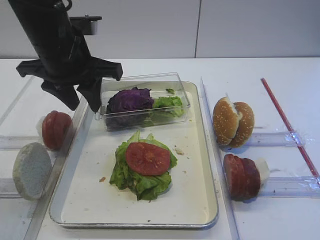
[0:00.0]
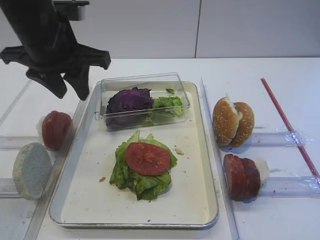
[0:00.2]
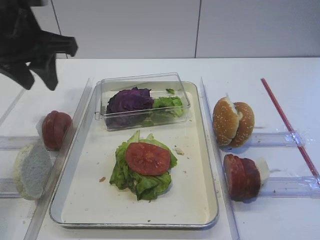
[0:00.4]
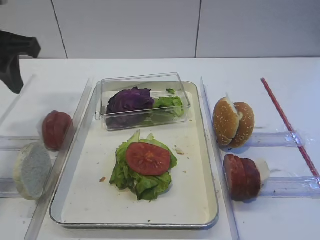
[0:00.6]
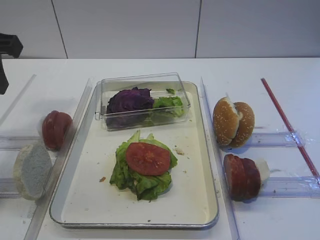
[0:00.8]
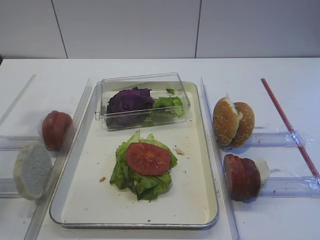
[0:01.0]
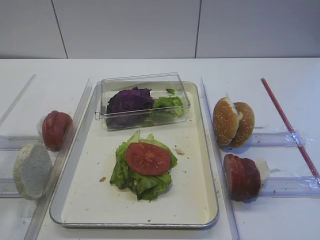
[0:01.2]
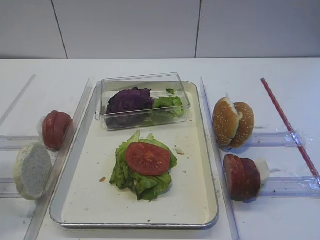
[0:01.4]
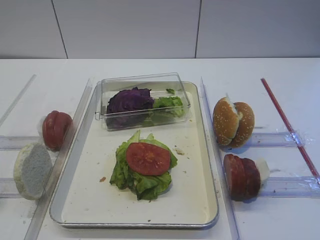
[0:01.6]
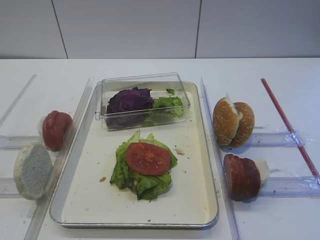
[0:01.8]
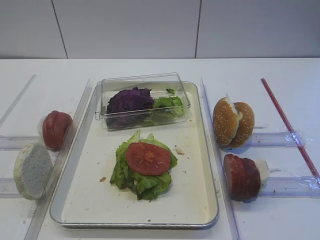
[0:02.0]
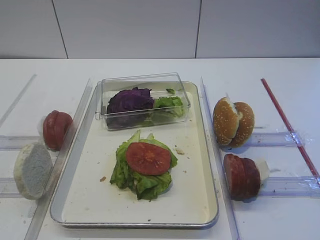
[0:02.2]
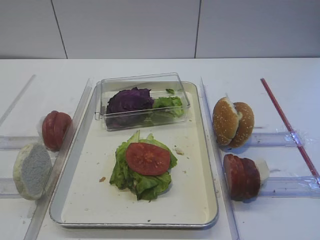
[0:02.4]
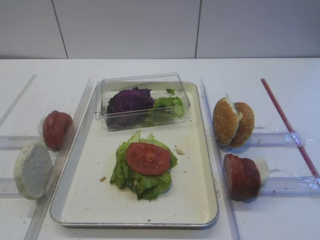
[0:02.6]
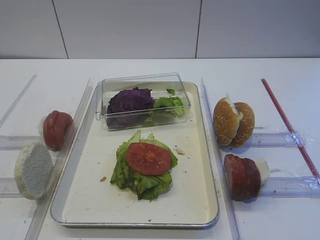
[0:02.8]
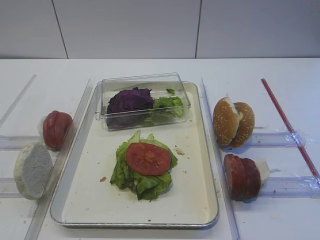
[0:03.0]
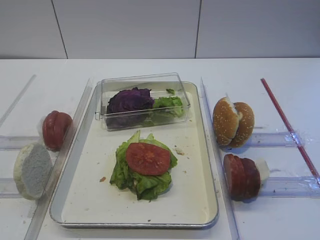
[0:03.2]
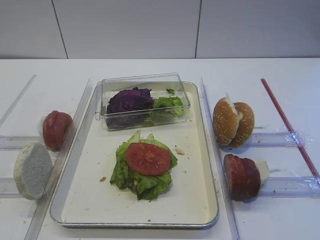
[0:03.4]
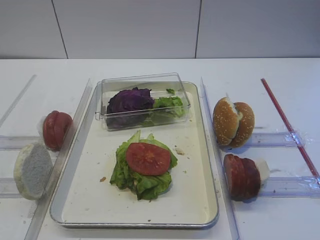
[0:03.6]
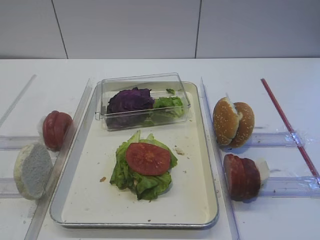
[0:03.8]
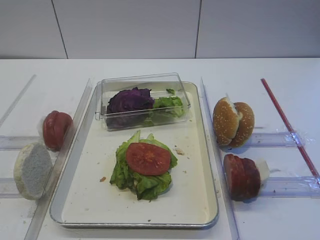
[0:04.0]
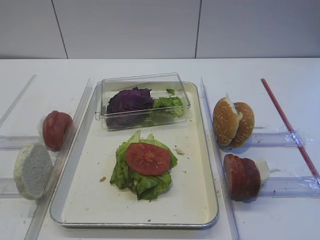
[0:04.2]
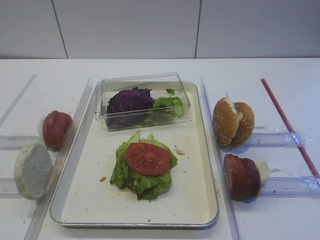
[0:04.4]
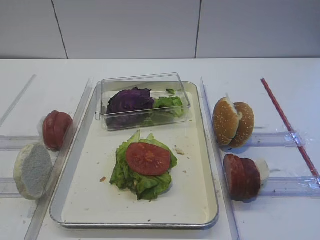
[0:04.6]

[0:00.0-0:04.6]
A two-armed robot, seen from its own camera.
0:00.0 to 0:01.6: The left gripper goes roughly 30 cm backward and to the left.
0:03.0 to 0:04.6: The two grippers keep their place.

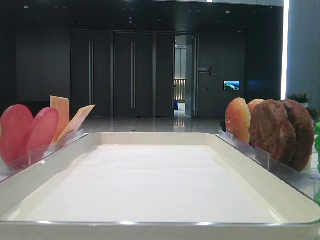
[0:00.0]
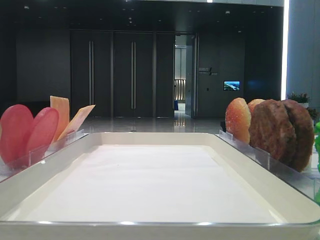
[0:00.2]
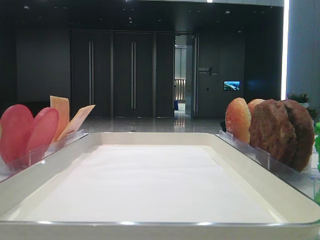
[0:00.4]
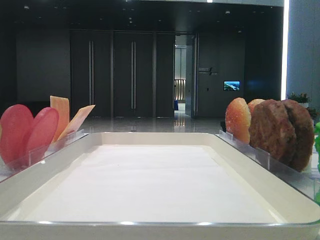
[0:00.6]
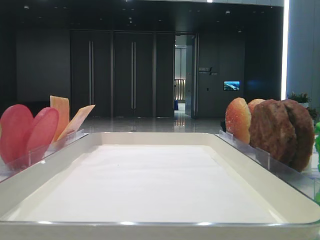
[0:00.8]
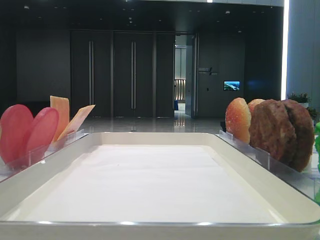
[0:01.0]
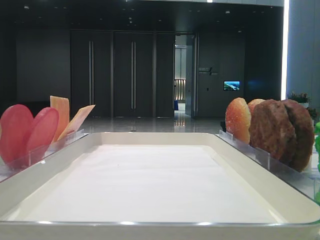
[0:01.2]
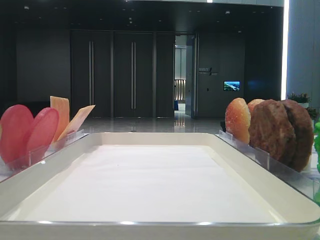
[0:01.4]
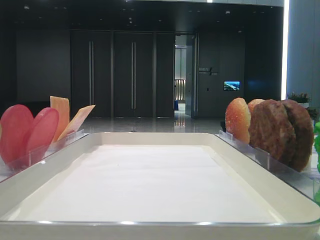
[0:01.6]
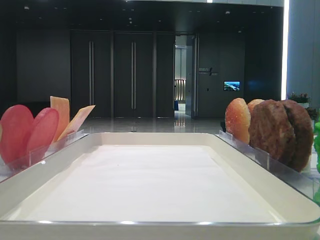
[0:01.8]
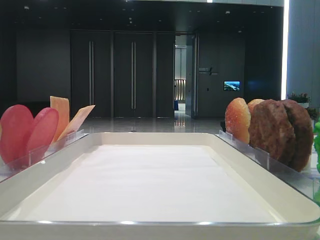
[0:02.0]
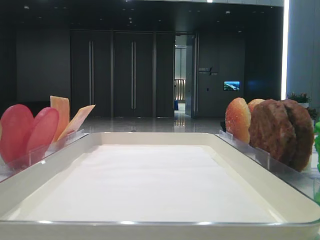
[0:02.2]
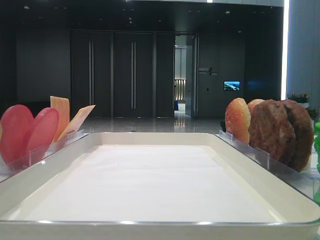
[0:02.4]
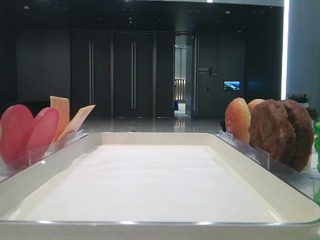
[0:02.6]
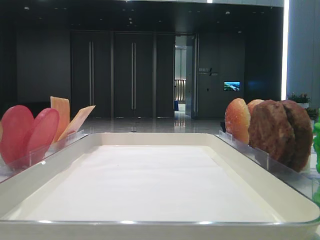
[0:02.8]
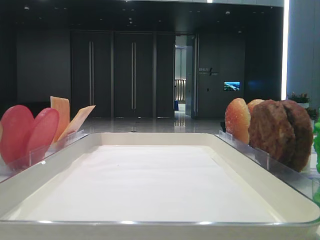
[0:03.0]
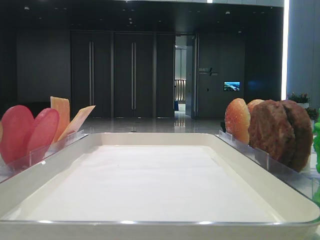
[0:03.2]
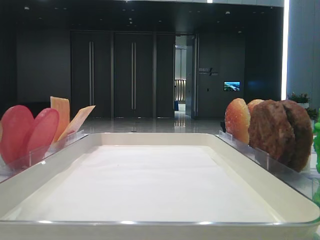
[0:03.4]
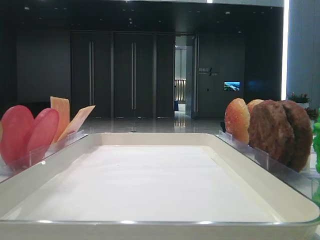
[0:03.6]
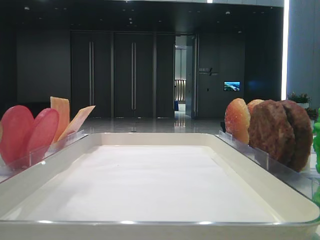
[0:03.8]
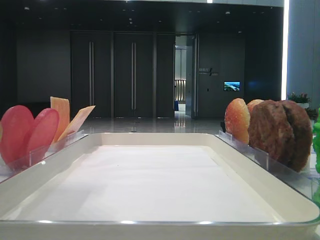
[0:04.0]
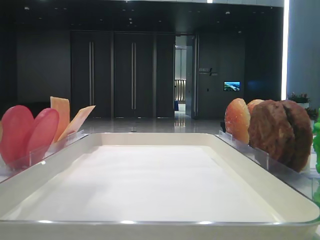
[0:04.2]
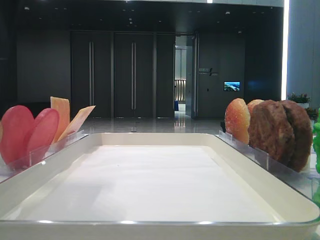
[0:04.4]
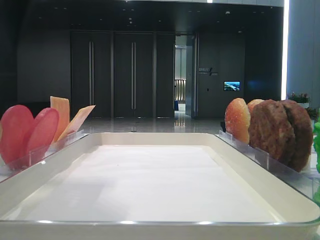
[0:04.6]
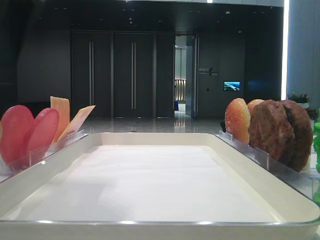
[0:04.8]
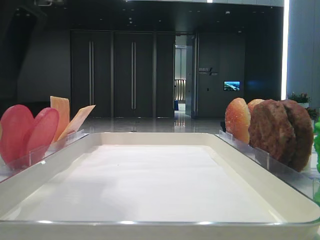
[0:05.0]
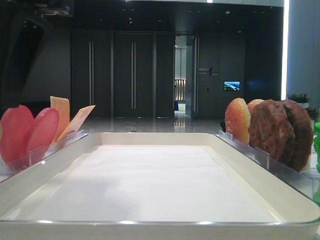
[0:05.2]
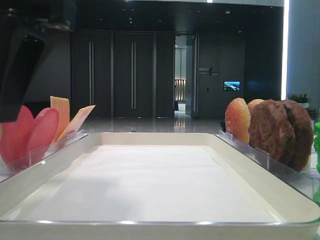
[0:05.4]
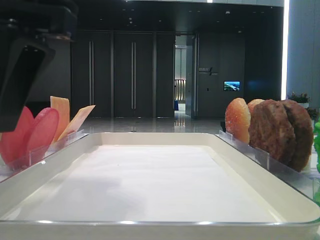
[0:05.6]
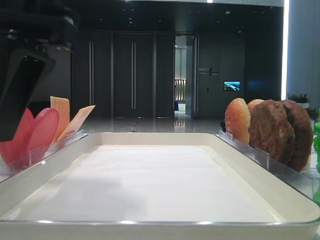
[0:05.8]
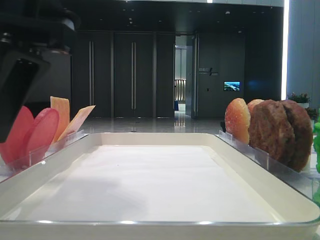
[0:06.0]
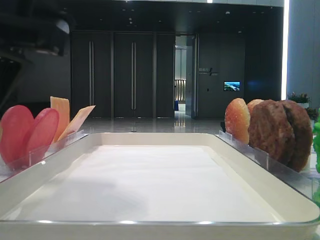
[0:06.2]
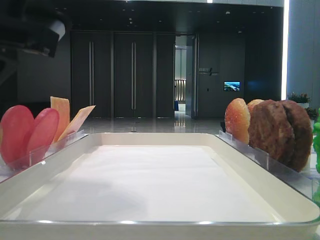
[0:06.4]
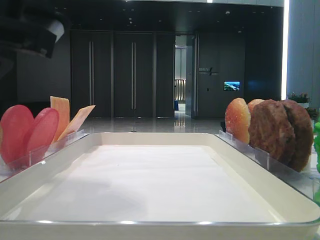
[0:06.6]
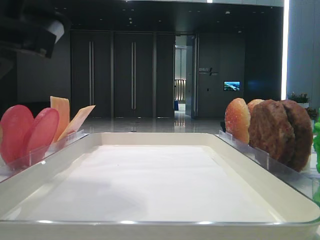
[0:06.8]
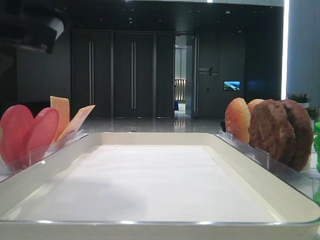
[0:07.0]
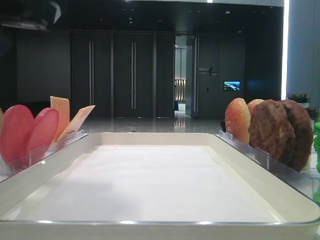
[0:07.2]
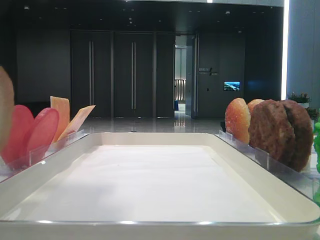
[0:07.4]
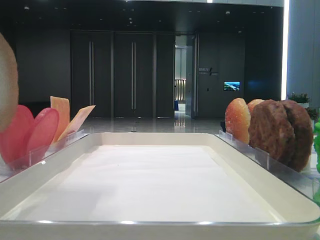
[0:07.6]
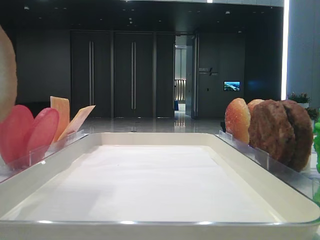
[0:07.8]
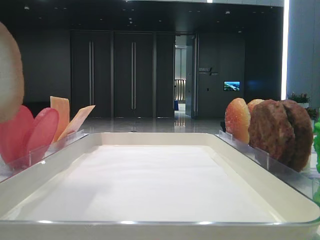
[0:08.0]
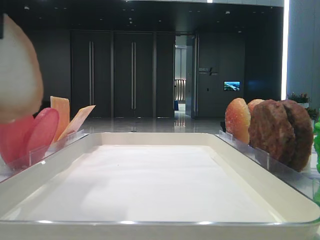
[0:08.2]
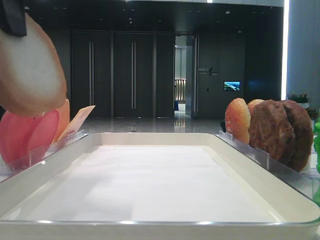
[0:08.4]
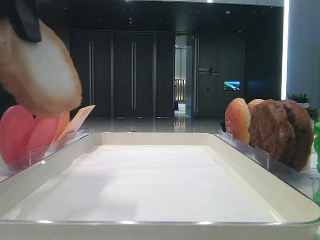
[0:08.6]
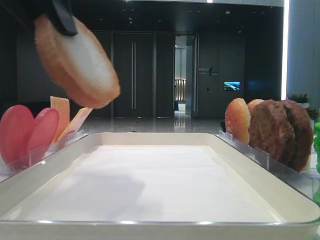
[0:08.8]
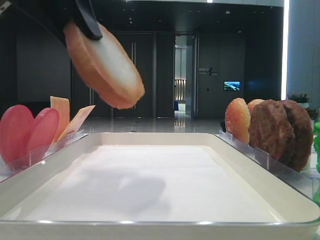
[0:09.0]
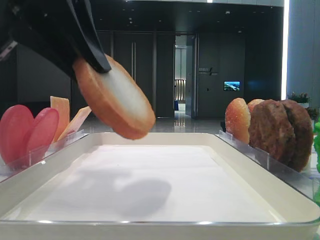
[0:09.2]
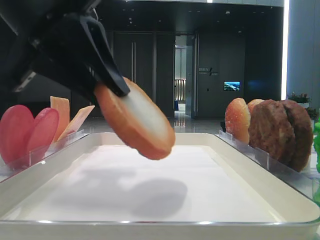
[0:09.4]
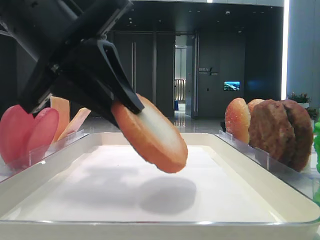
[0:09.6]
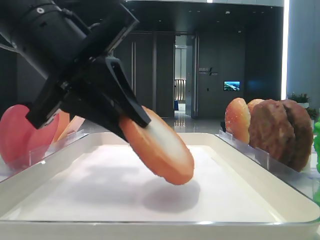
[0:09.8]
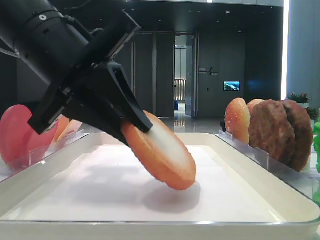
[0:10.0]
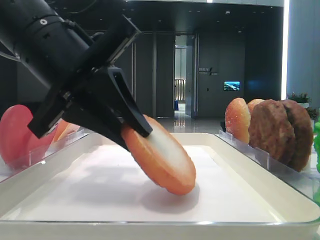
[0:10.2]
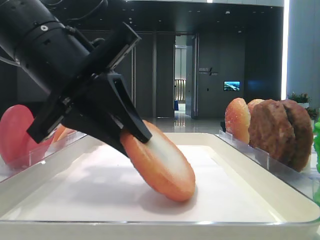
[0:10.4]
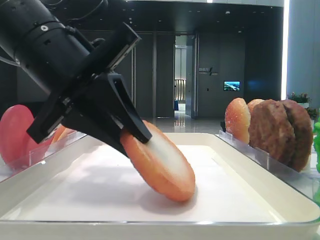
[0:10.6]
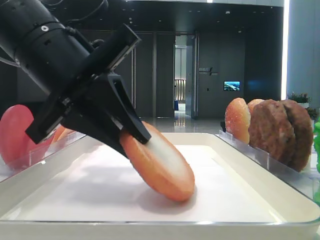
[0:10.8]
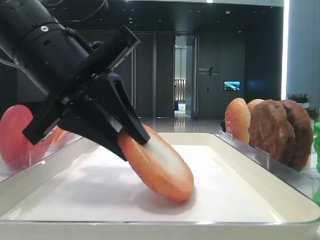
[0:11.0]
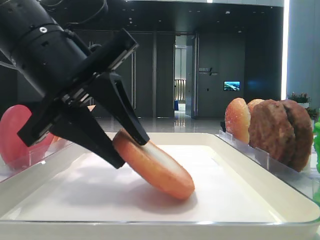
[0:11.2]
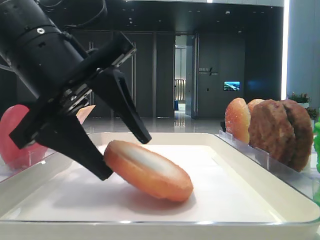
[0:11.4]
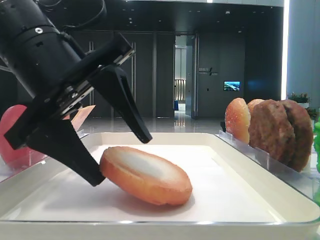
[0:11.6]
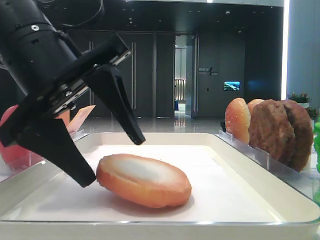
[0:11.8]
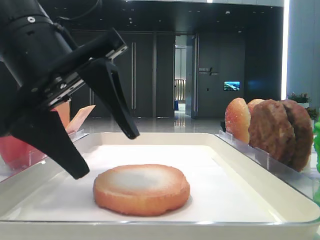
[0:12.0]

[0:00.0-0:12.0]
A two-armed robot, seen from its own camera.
Step, 0:00.0 to 0:06.0: Pick up the bottom bread slice with the left hand.
Step, 0:06.2 to 0:11.8: Place the bottom bread slice on the tray with the left hand.
0:03.0 to 0:04.4: The left gripper moves to the right and downward, about 15 cm.
0:04.4 to 0:06.0: The left gripper goes about 5 cm downward.
0:06.0 to 0:07.6: The left gripper heads upward, covering some 5 cm, and closes.
0:07.6 to 0:09.0: The left gripper heads forward, covering roughly 5 cm.
0:09.0 to 0:10.4: The left gripper goes about 10 cm downward.
0:10.4 to 0:12.0: The left gripper opens.

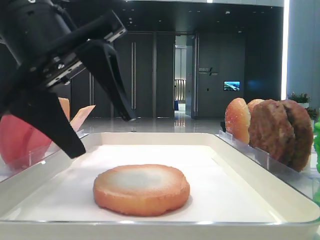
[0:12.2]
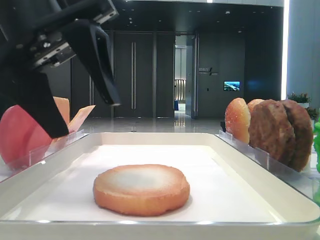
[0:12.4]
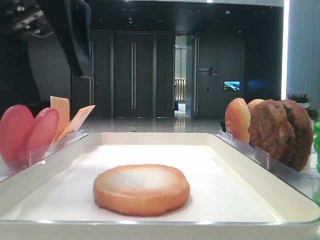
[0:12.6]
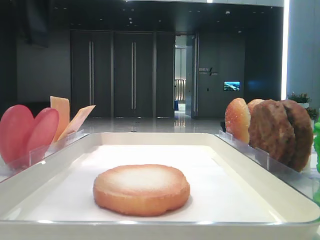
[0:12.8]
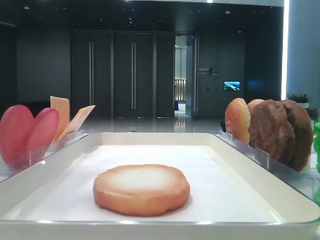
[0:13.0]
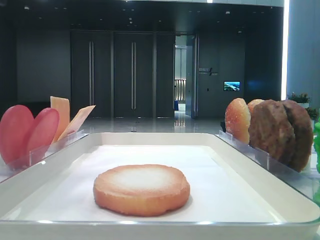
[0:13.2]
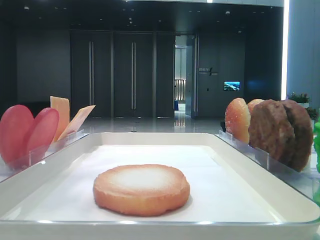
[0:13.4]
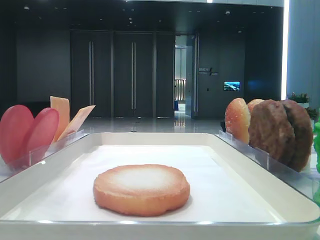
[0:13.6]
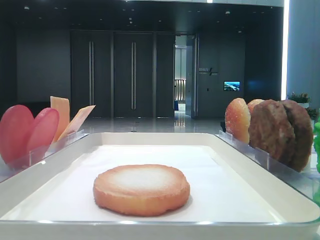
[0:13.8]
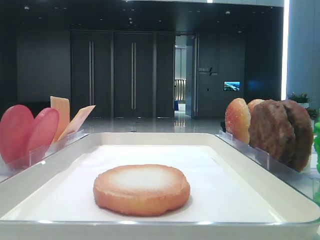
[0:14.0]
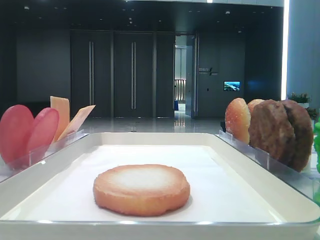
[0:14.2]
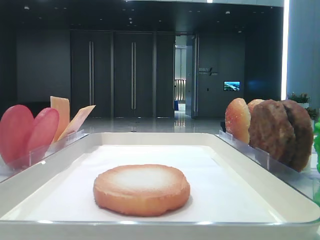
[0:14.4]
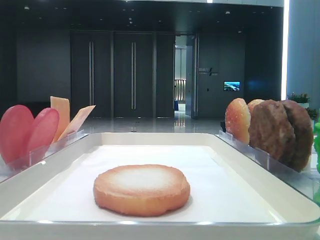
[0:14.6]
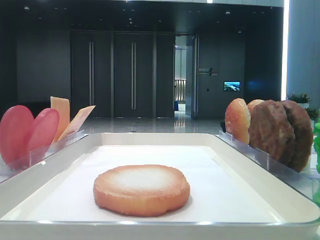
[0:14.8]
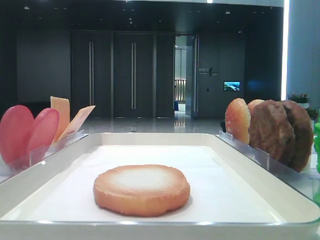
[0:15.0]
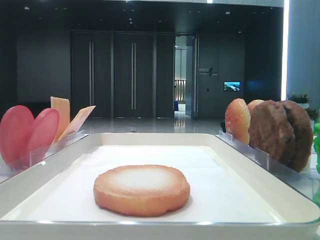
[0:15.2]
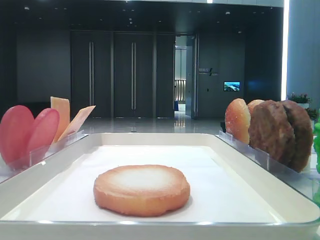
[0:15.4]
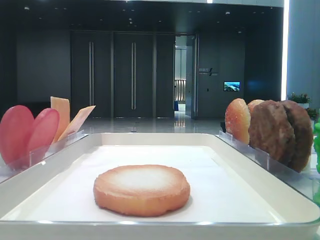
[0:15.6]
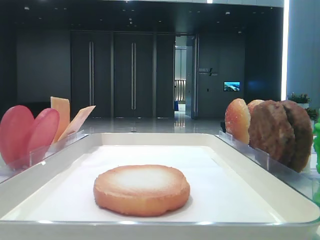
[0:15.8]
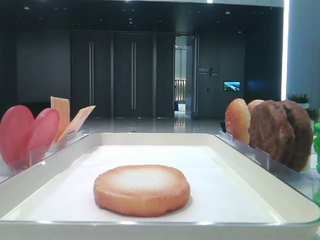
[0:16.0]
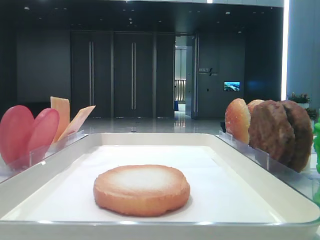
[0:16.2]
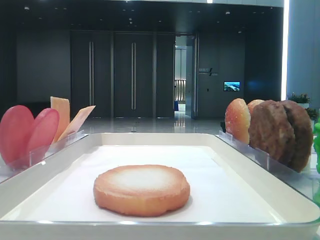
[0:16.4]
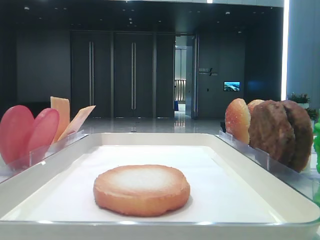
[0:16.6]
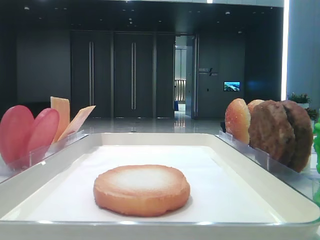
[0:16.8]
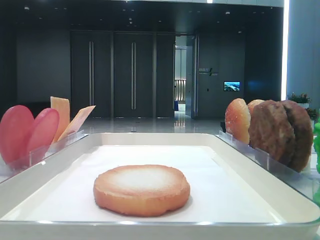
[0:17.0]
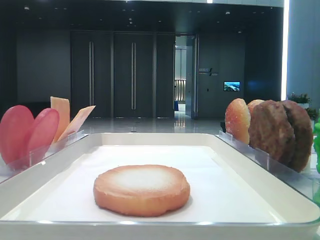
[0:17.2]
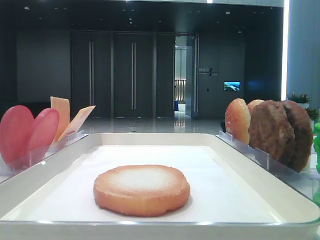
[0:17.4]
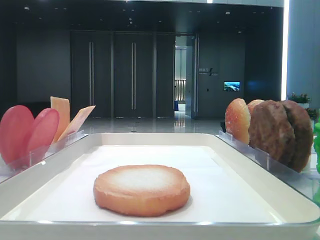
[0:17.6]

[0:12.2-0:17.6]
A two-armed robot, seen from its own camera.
0:12.2 to 0:13.6: The left gripper travels upward and to the left by approximately 20 cm.
0:13.6 to 0:15.0: The left gripper travels backward and to the left by approximately 20 cm.
0:16.2 to 0:17.6: Both grippers stay about where they are.
